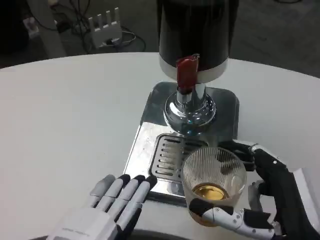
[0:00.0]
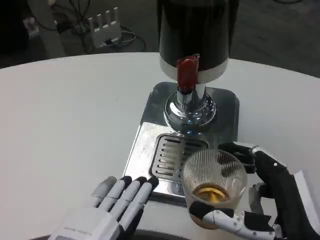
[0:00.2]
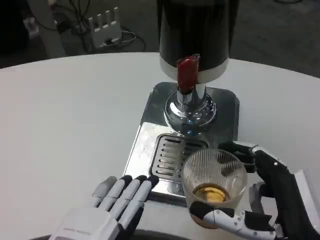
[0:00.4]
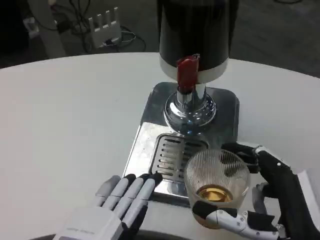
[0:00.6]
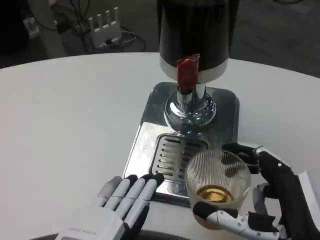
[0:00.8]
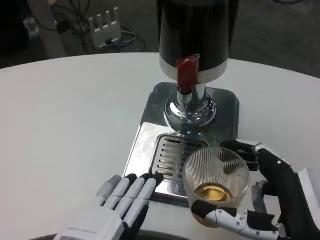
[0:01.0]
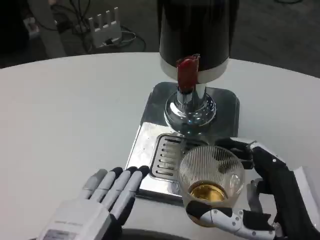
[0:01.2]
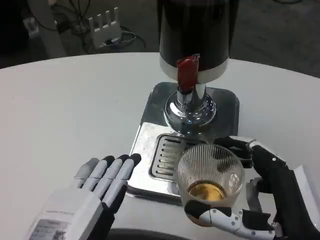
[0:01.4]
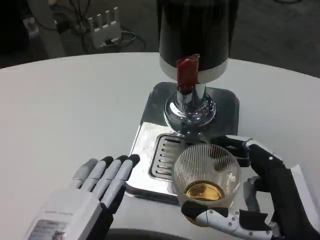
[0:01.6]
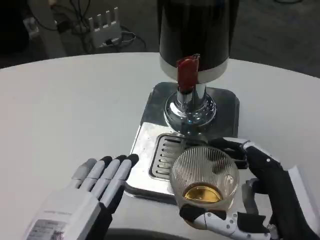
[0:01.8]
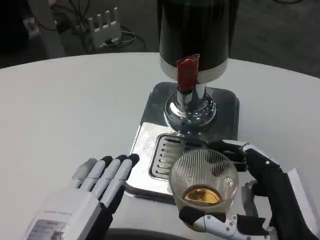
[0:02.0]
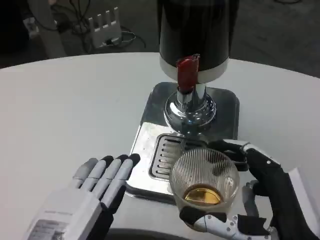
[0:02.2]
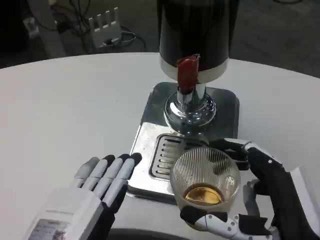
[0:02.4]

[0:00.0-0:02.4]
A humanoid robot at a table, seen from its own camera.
Task of the whole recording: Grasp the cup under the faucet to collect the drink, then remove the cup.
0:00.0 to 0:01.2: There are only small adjustments of the hands.
0:01.2 to 0:02.4: Neither hand changes place.

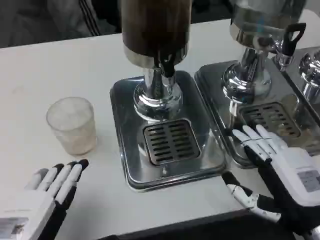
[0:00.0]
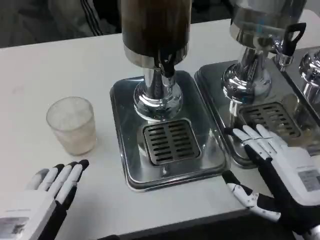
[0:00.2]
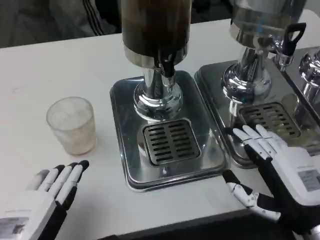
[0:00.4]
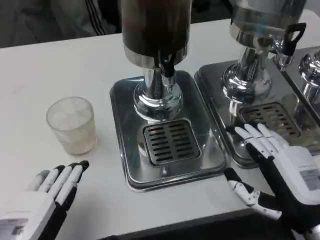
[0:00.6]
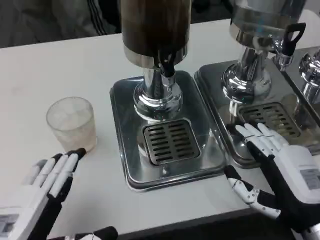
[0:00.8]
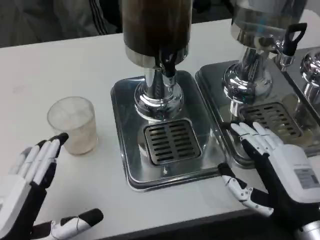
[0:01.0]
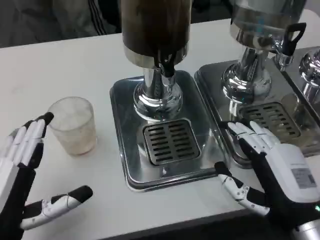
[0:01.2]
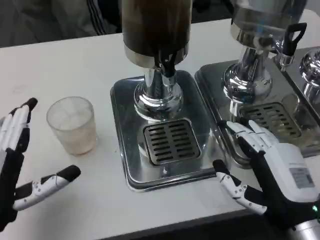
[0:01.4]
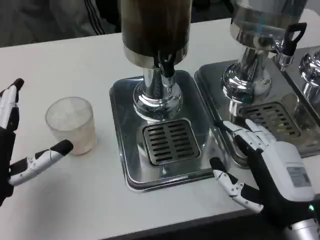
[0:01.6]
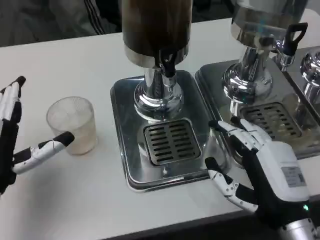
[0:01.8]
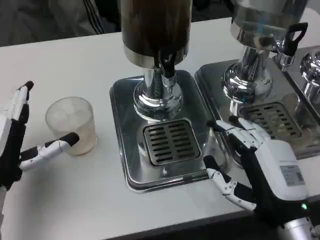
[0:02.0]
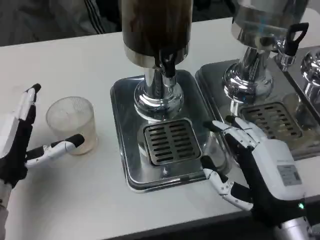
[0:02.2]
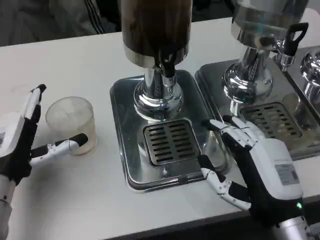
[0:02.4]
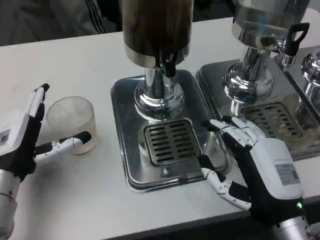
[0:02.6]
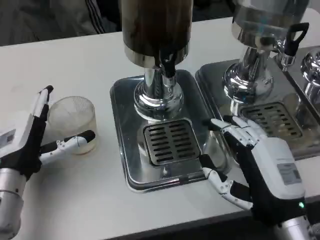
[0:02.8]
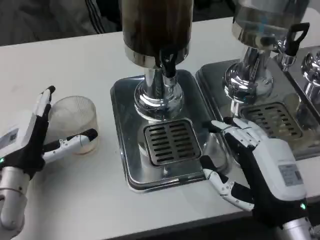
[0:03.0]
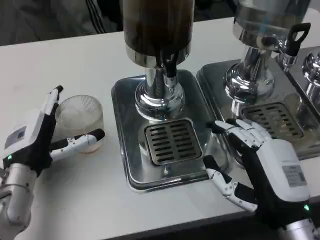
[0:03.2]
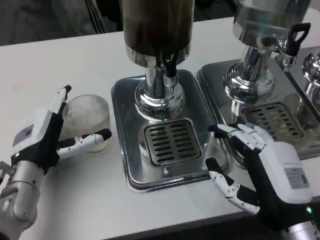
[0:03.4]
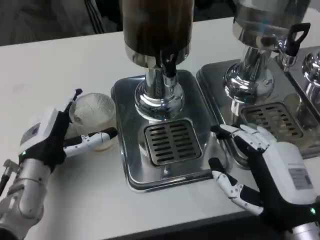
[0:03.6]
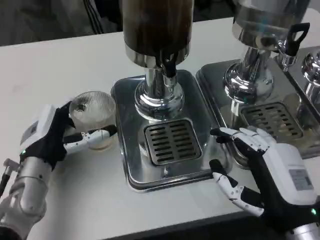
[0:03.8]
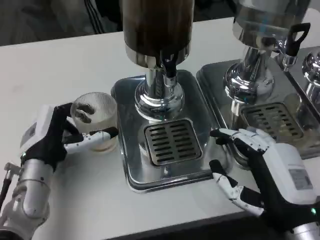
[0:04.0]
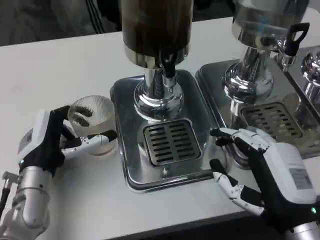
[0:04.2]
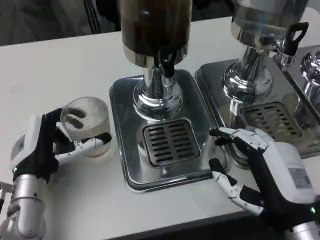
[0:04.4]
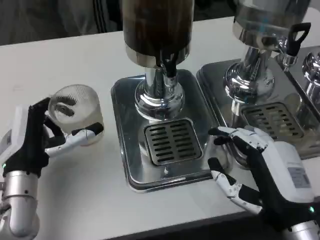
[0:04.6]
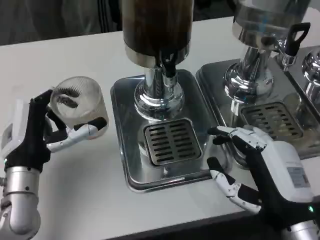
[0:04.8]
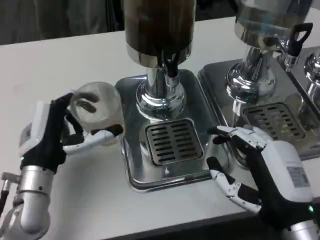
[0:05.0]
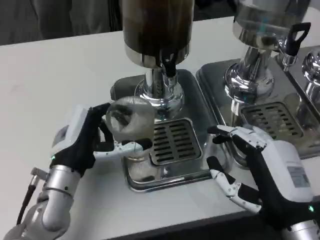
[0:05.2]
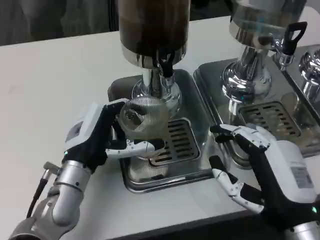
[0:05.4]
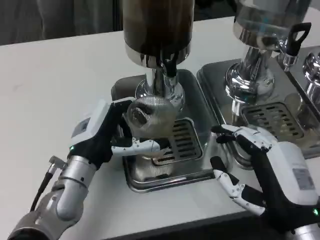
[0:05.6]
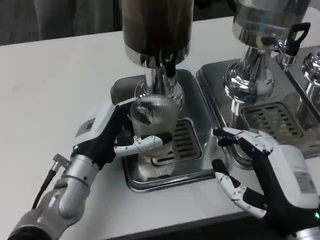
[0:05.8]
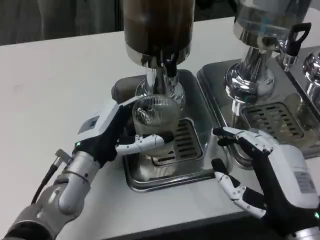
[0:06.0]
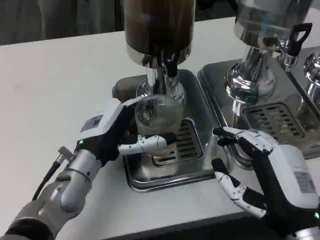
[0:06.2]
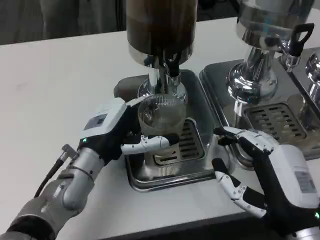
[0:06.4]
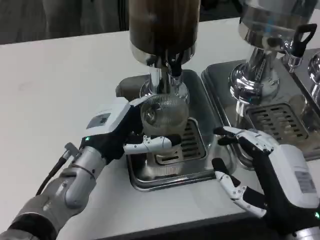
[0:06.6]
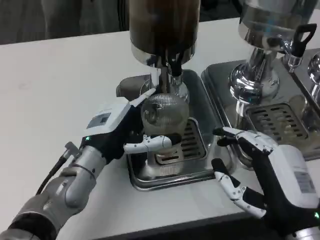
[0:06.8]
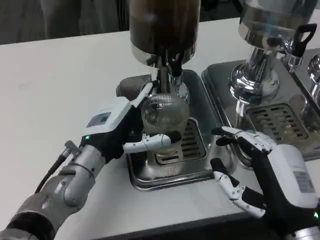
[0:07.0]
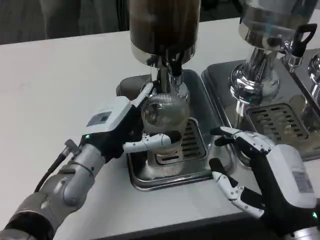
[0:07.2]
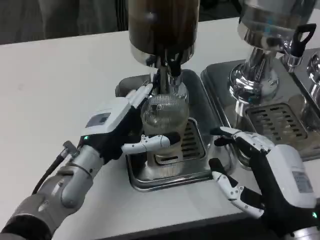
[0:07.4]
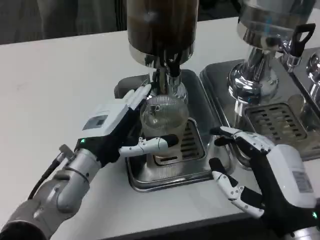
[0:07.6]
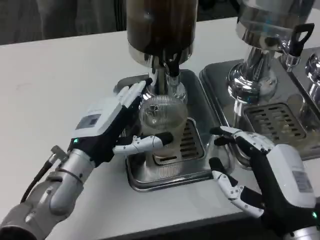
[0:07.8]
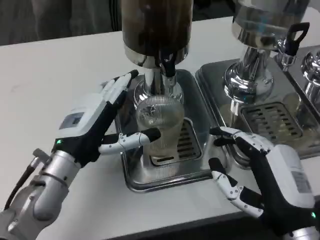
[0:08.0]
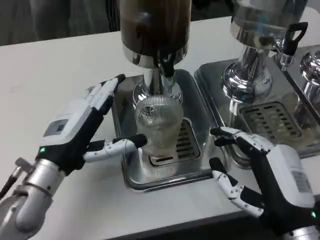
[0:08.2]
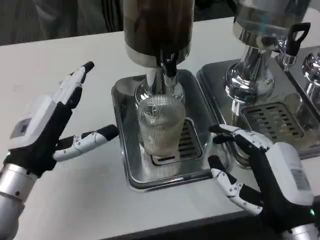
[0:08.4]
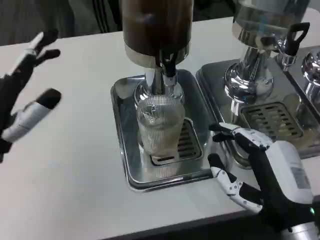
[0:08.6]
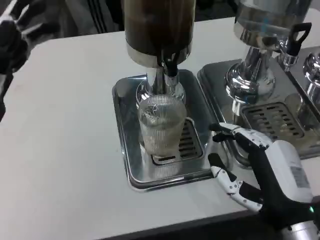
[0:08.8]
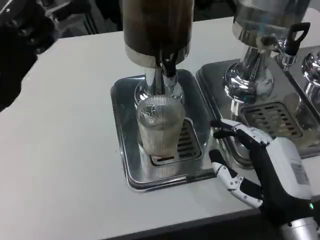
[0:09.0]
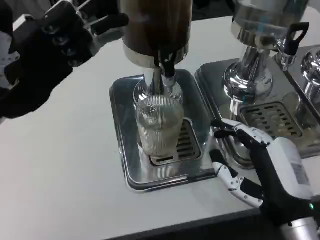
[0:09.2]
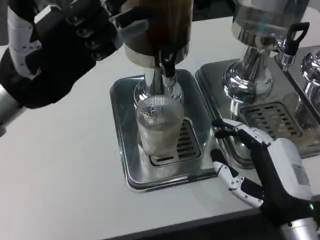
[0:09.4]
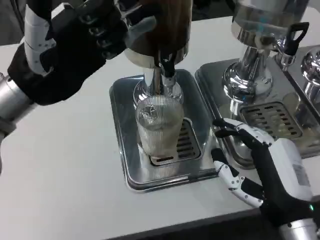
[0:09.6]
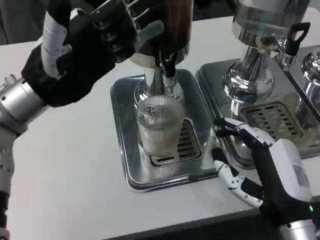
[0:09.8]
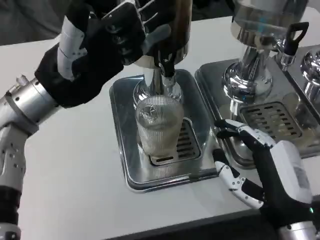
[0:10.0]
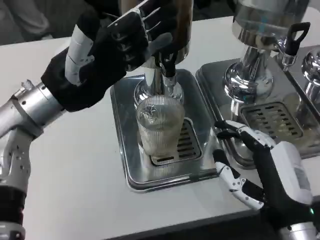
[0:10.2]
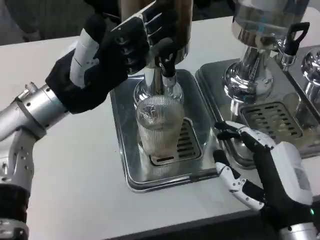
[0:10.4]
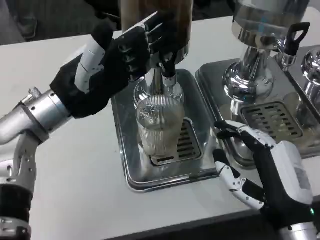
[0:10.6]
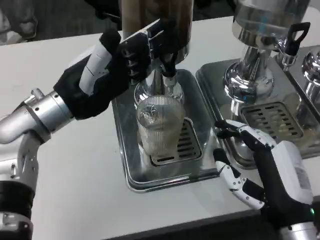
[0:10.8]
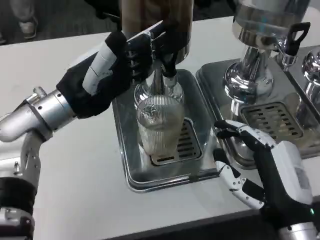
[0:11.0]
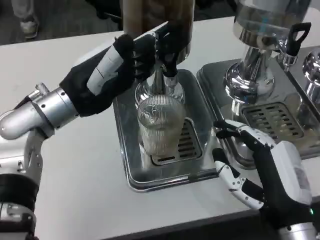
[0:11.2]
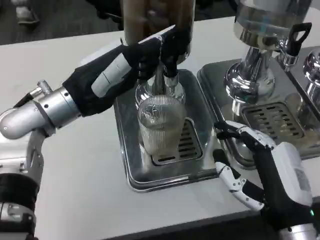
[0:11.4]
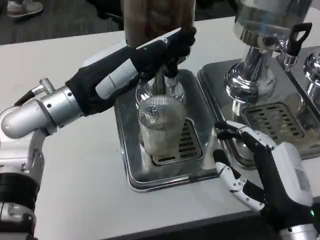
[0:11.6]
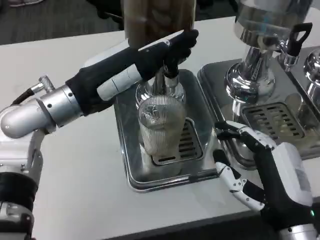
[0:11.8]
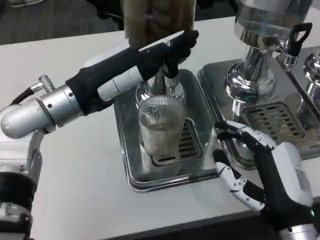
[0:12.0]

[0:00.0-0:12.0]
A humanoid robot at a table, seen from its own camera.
Task of the whole recording: Grasp the cup under the faucet to collect the drink, then remove the cup.
0:00.0 to 0:01.6: The left hand travels forward by about 10 cm.
0:01.6 to 0:03.0: The left hand goes roughly 5 cm forward.
0:04.4 to 0:06.0: The left hand travels to the right by approximately 5 cm.
0:07.6 to 0:09.0: The left hand goes about 20 cm upward and to the left.
0:09.0 to 0:10.4: The left hand heads to the right and forward, covering about 10 cm.

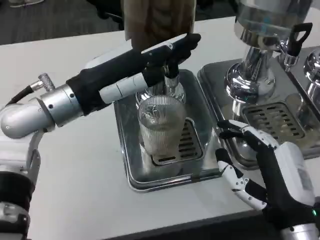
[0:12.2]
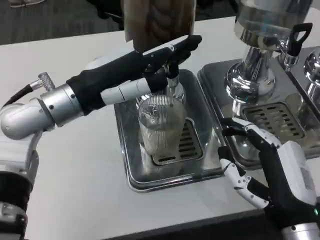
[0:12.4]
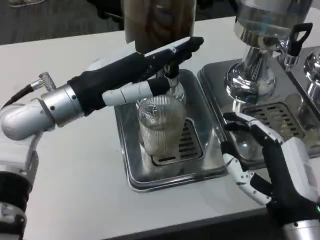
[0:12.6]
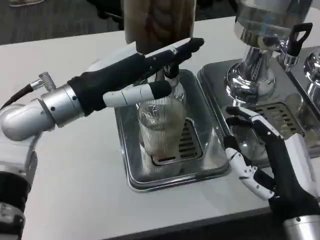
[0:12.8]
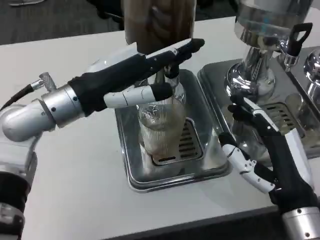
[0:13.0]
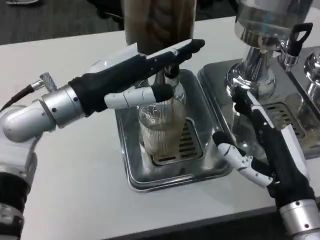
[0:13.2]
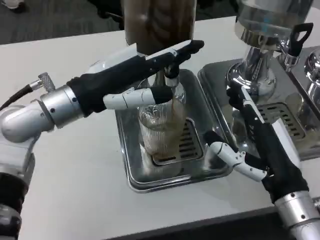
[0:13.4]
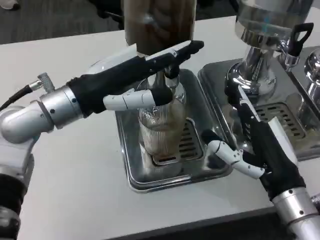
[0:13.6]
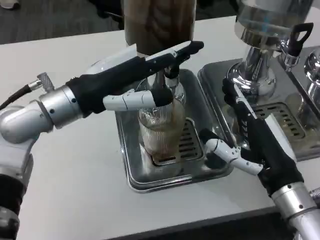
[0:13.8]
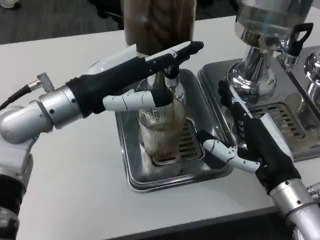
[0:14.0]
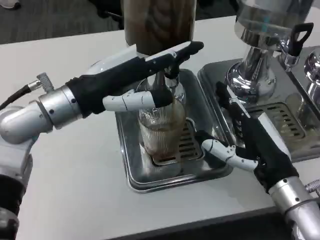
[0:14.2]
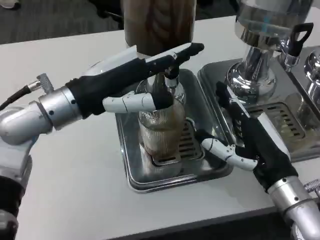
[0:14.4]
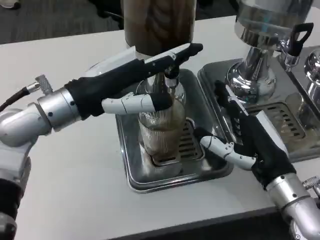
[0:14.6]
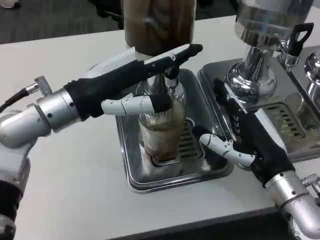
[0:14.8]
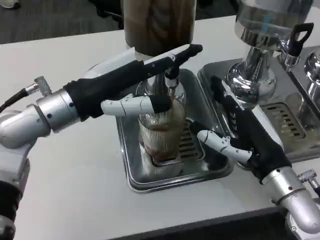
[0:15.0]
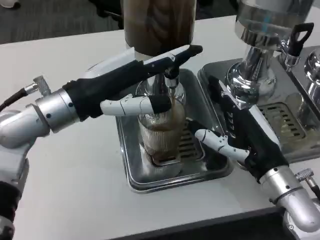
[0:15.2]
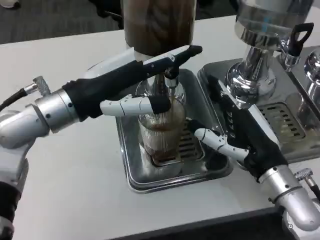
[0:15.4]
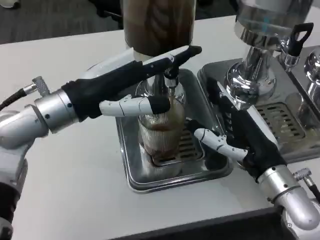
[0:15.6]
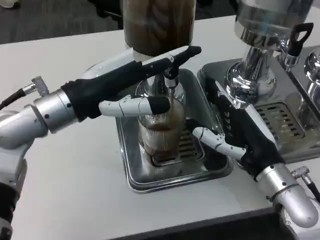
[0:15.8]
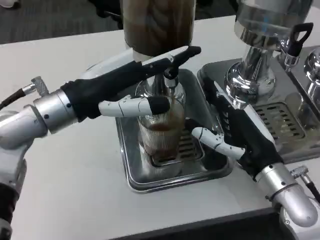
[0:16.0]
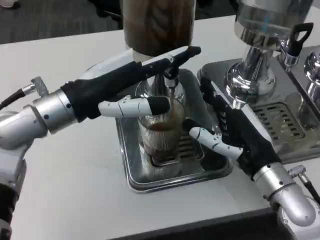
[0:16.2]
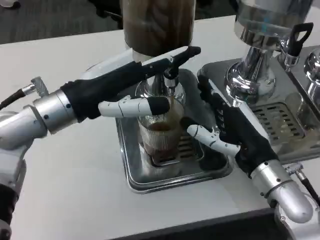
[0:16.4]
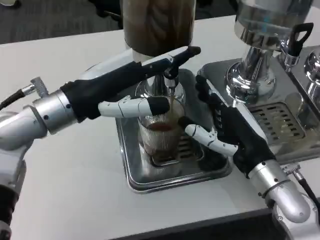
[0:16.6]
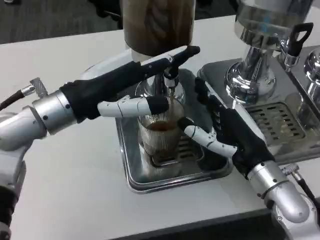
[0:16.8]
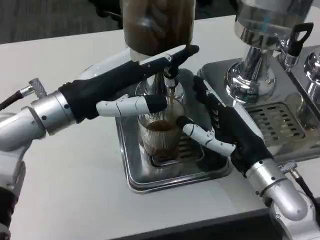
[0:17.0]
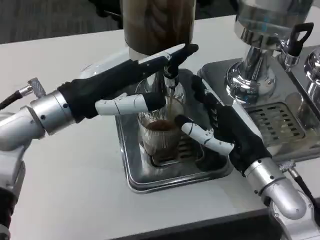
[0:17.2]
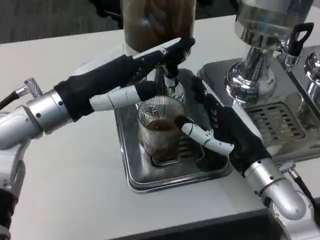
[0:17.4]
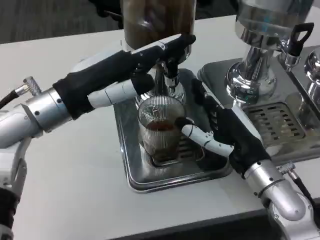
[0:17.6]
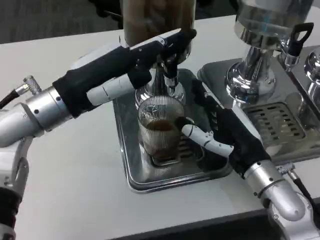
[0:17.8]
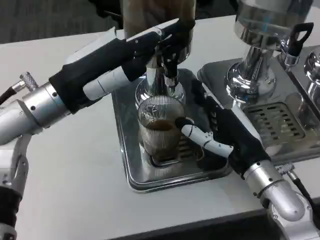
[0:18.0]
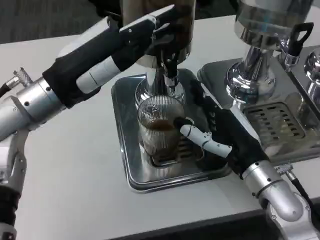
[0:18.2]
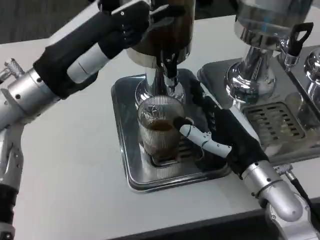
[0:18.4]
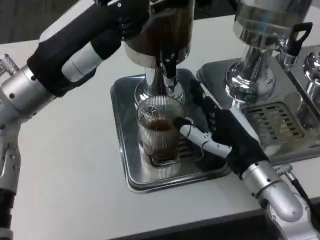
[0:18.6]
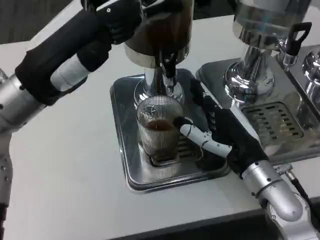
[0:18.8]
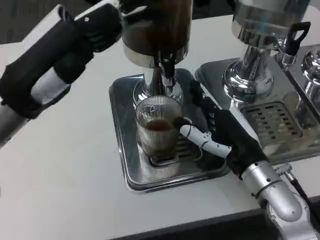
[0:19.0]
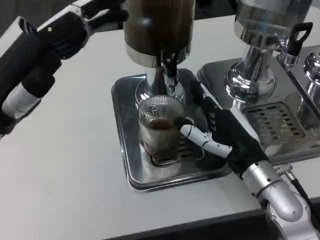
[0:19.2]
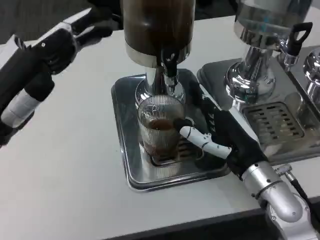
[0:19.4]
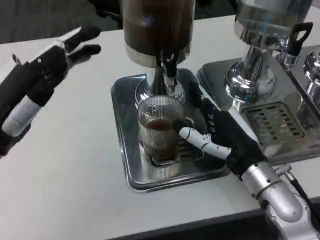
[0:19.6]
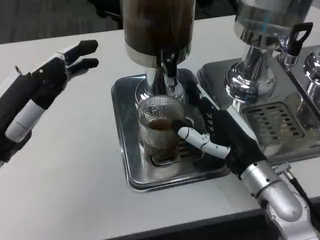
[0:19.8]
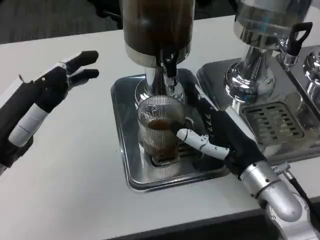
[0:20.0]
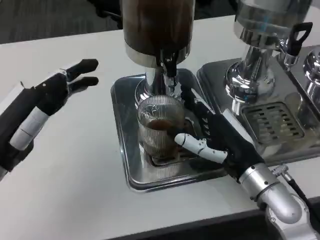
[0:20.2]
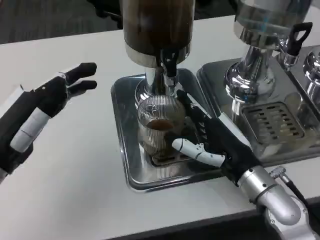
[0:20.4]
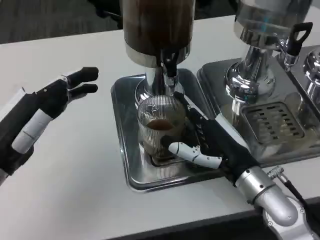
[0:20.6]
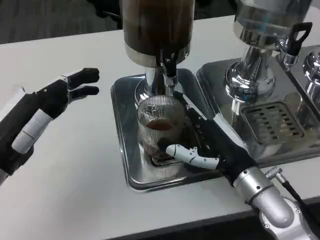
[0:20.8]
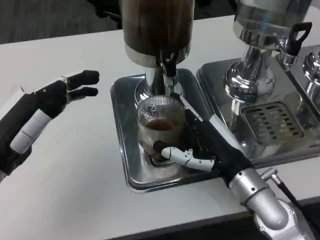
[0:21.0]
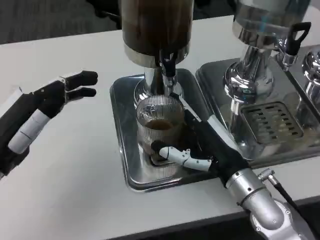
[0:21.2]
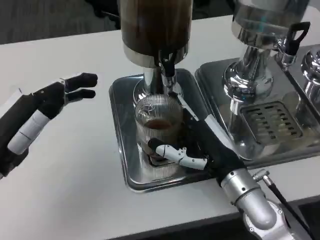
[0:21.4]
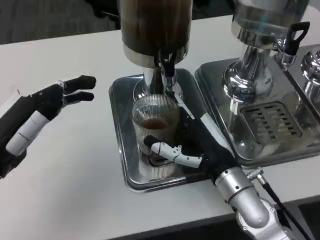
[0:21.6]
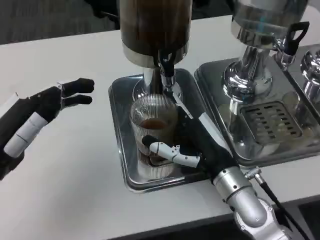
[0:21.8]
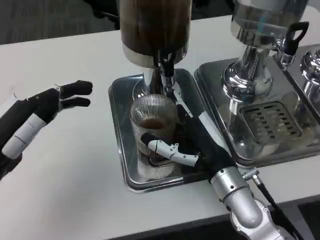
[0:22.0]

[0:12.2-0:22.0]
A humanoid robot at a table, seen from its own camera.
Task of the whole recording: Grasp the cup under the faucet to collect the drink, then remove the cup.
0:12.2 to 0:13.6: The right hand changes place by some 5 cm.
0:13.6 to 0:16.4: There are only small adjustments of the hands.
0:17.8 to 0:19.2: The left hand heads backward, covering about 5 cm.
0:19.2 to 0:20.6: The left hand travels downward by some 10 cm.
